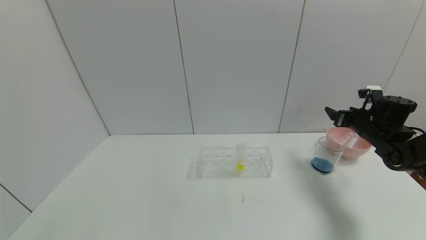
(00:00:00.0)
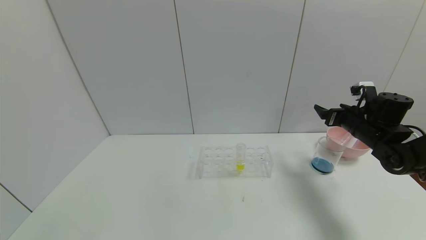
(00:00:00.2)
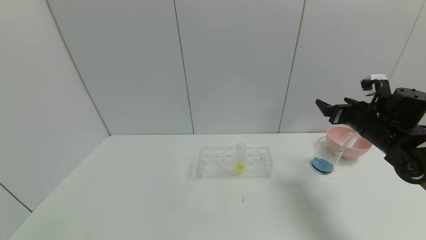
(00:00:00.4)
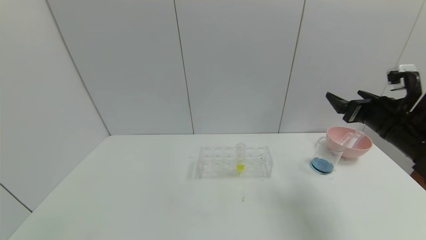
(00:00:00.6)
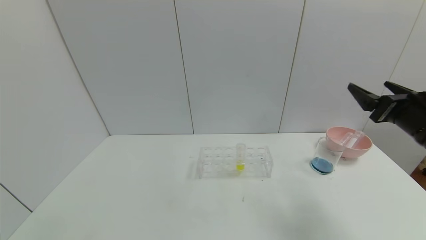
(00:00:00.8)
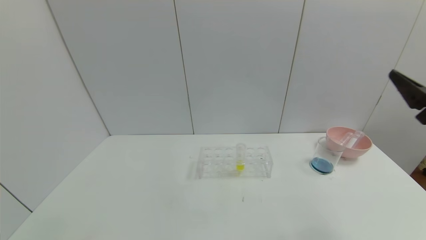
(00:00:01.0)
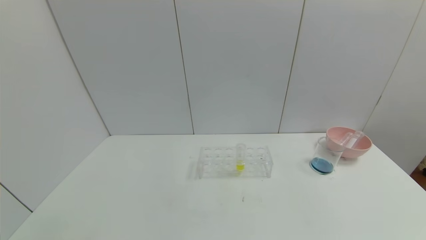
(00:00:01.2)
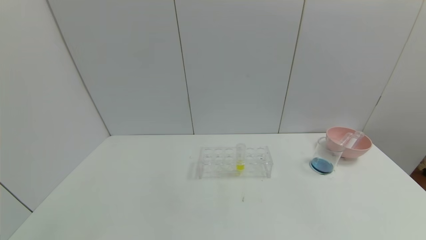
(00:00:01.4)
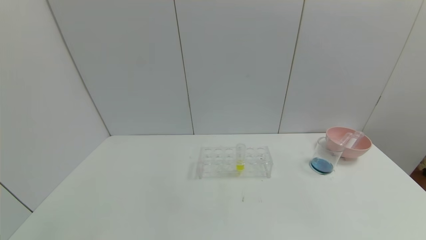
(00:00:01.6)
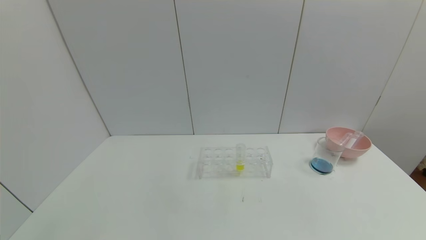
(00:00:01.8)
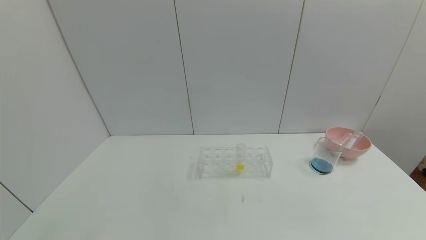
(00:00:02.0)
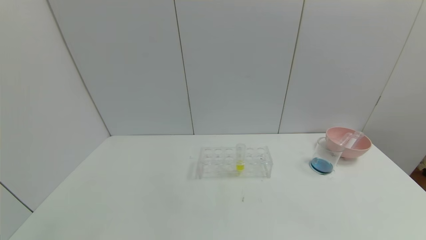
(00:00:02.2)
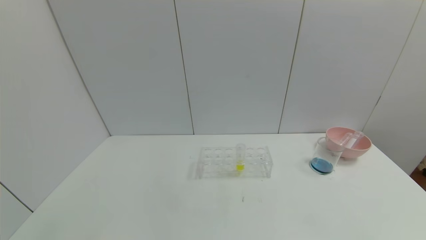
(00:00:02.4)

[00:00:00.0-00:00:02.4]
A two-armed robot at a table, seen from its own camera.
Task of the whole recording: pick up the test tube with red pigment and the test tube with blue pigment by grippers and pour them into the container.
00:00:00.0 to 00:00:01.2: The right gripper shifts approximately 30 cm backward and upward.
